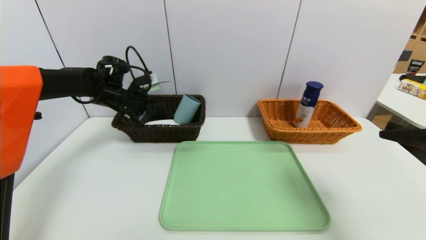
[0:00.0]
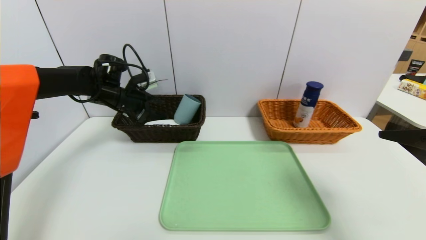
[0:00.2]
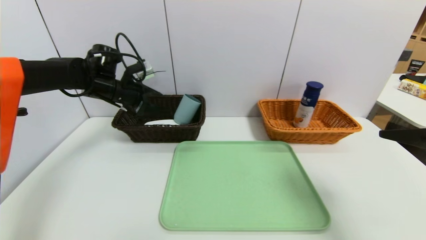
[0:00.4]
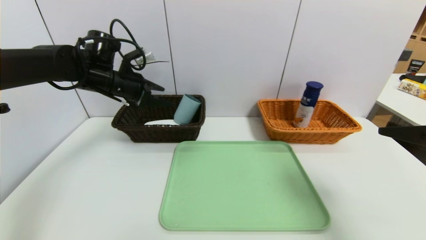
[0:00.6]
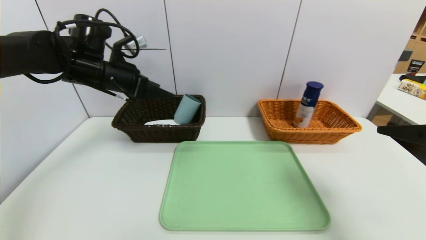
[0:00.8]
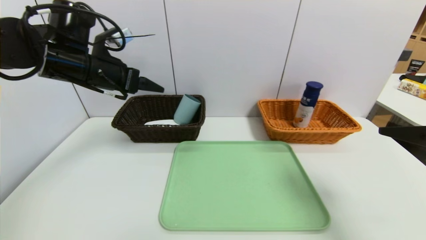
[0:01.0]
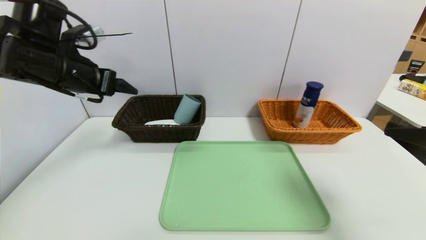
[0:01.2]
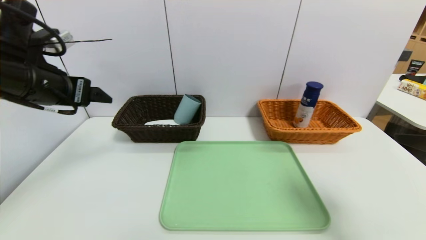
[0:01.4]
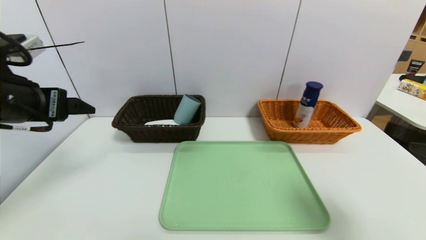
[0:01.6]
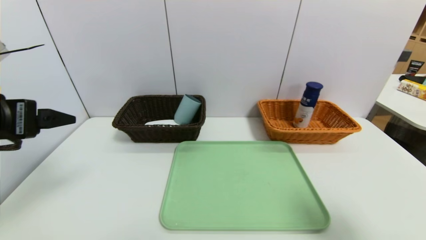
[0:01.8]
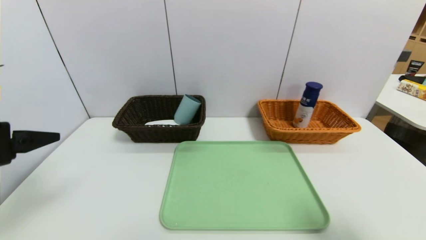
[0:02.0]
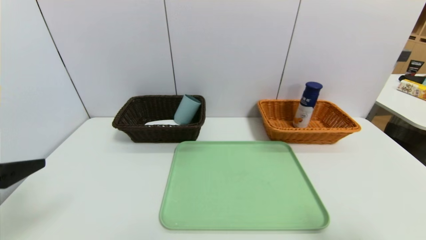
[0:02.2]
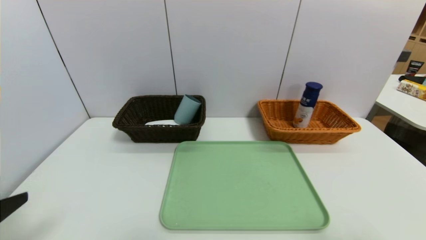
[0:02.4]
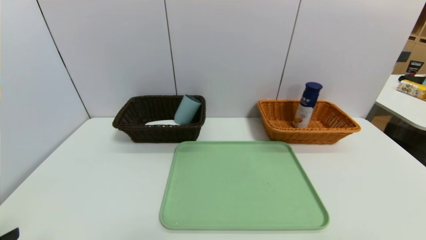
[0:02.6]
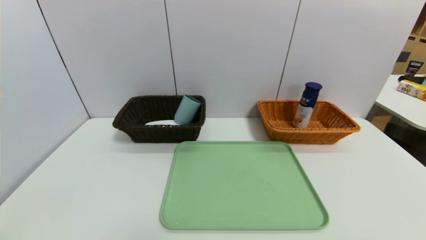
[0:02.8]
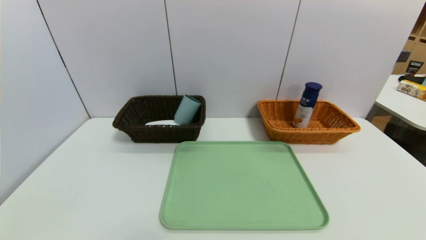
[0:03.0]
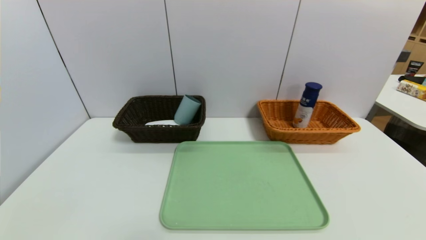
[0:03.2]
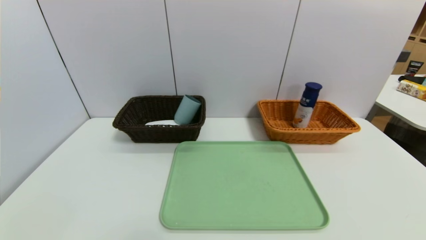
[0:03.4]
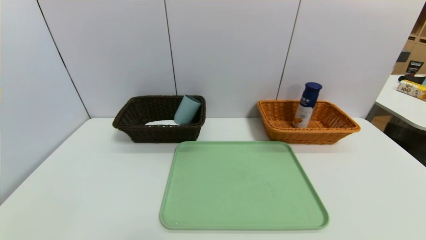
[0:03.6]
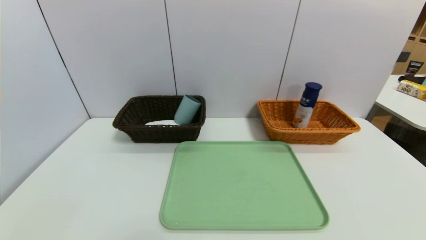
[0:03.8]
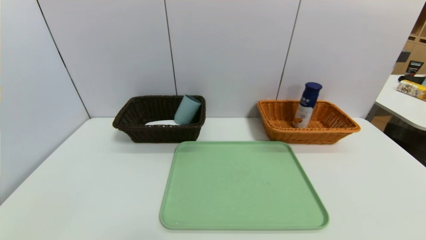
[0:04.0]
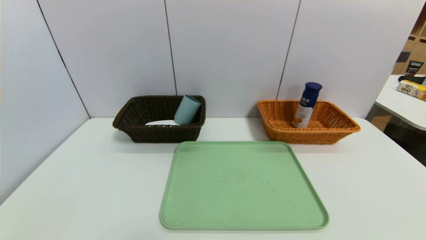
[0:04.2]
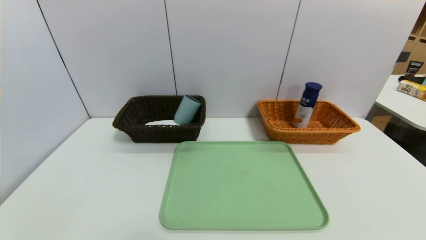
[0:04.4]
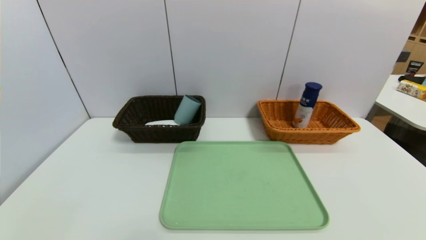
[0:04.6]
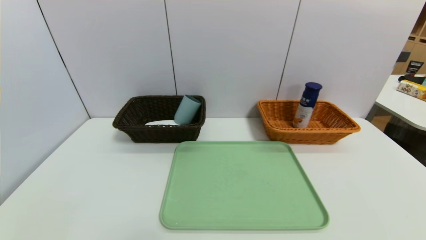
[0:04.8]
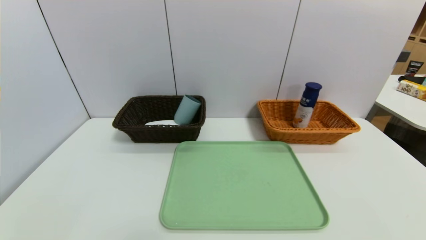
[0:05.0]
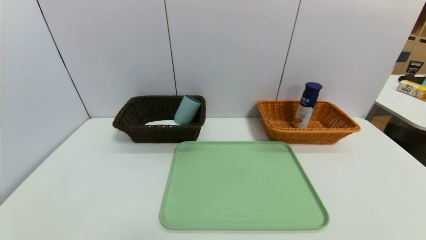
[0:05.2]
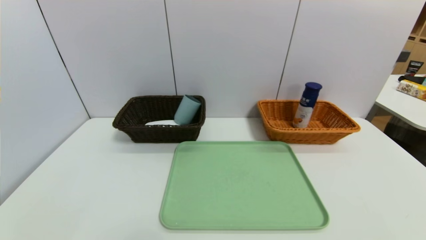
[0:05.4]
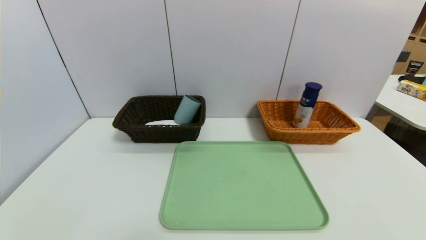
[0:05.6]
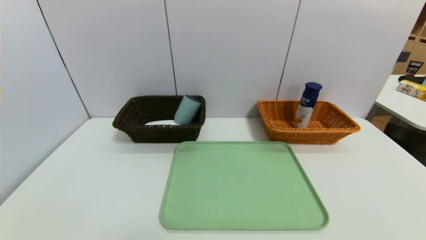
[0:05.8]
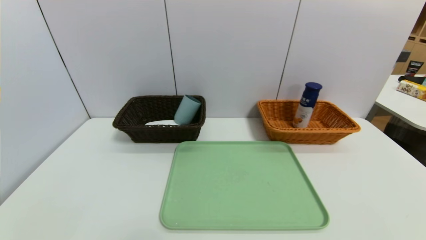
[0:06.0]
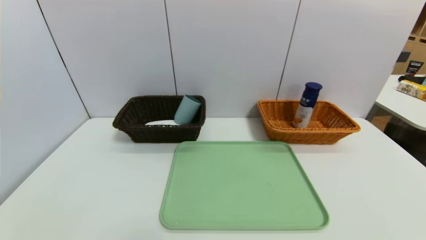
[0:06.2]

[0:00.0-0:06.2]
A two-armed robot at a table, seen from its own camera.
Task of the whole recording: place the food in the right basket with the right gripper, and place the non food items in the left basket with the left gripper.
0:00.0 to 0:01.6: The left gripper goes approximately 25 cm backward and upward, and opens. The right gripper moves backward, approximately 5 cm.
0:01.6 to 0:03.2: The left gripper goes roughly 25 cm backward and downward, while the right gripper shifts approximately 15 cm backward and downward.
